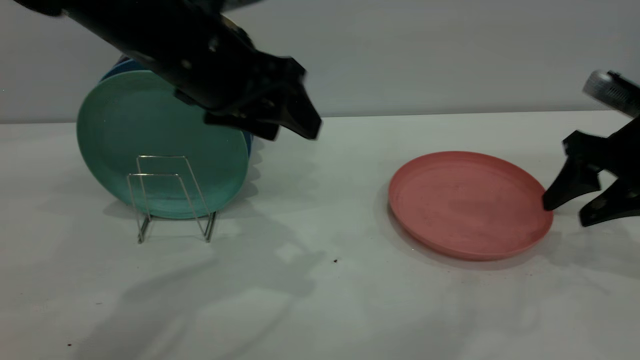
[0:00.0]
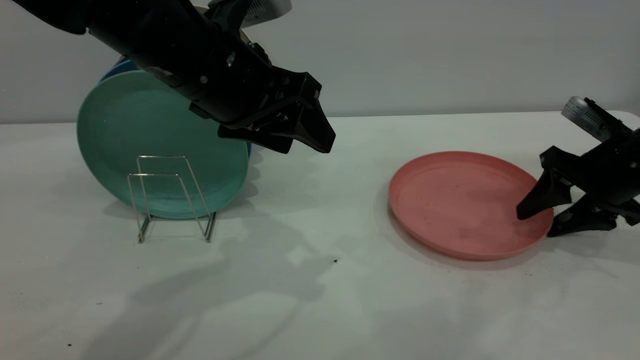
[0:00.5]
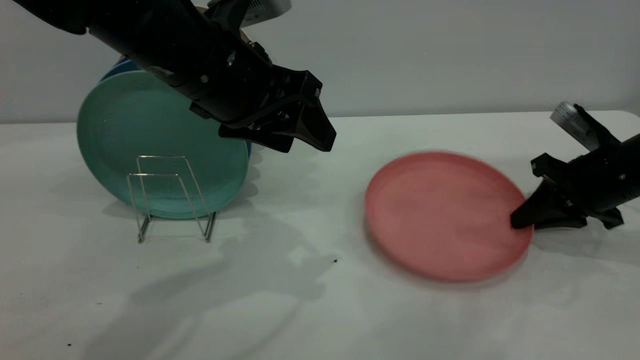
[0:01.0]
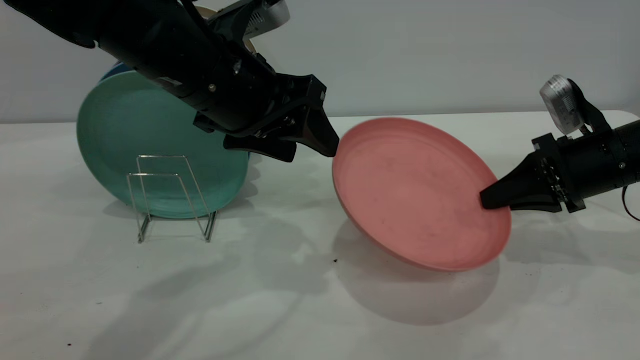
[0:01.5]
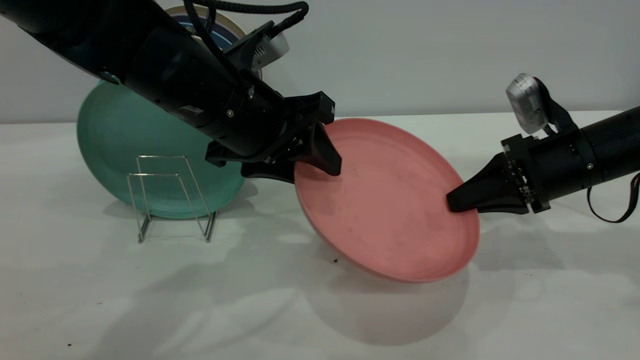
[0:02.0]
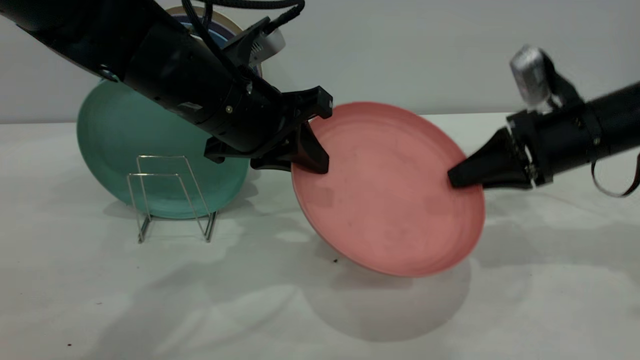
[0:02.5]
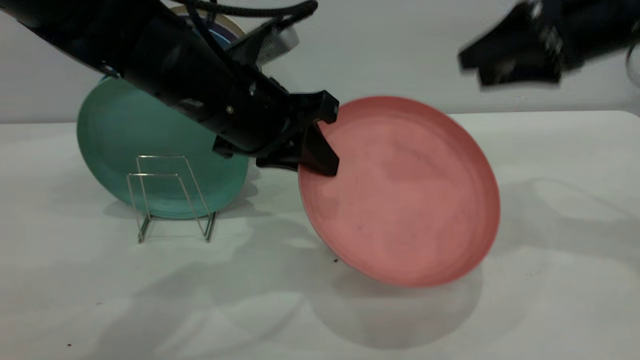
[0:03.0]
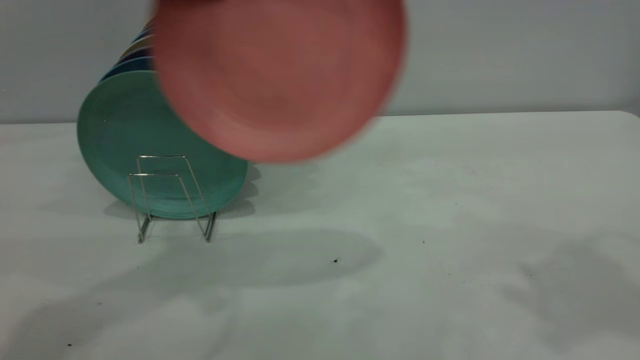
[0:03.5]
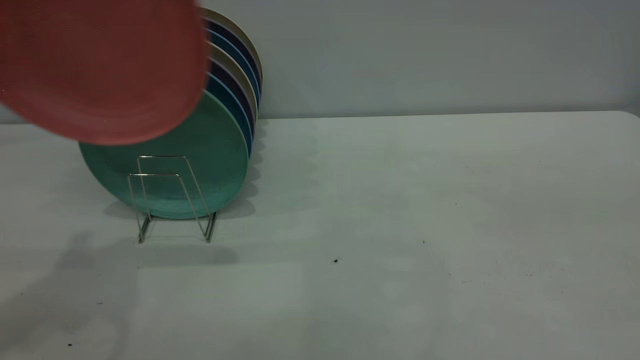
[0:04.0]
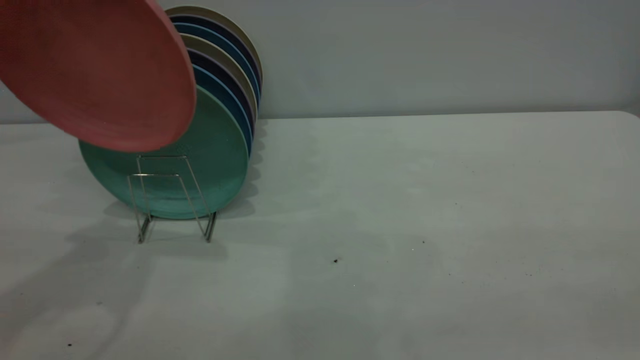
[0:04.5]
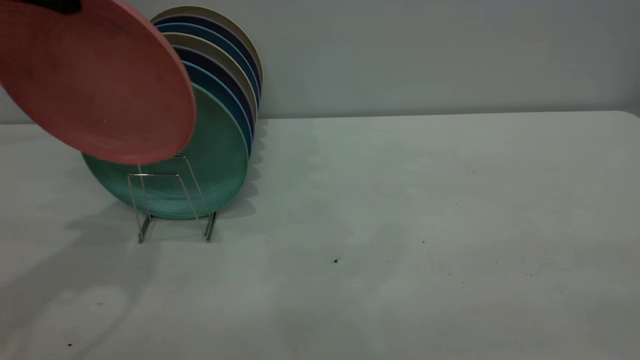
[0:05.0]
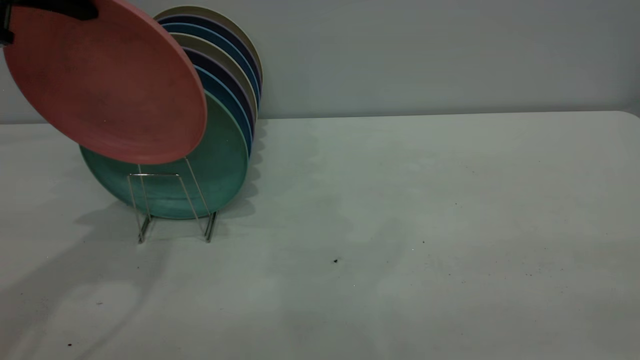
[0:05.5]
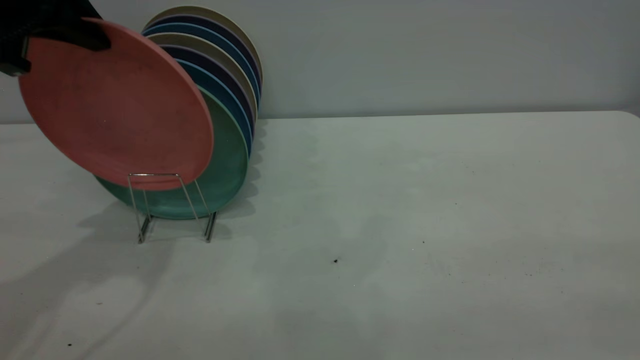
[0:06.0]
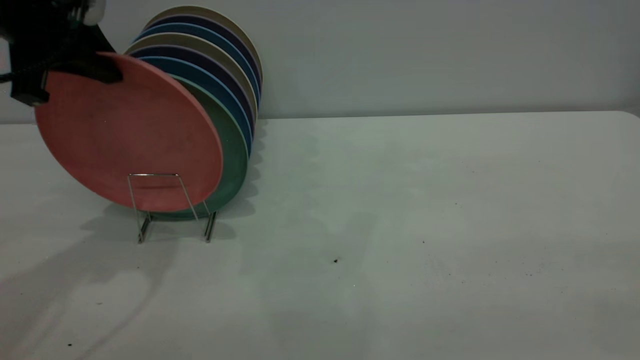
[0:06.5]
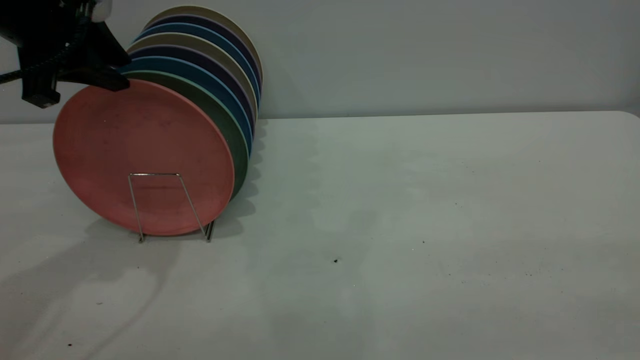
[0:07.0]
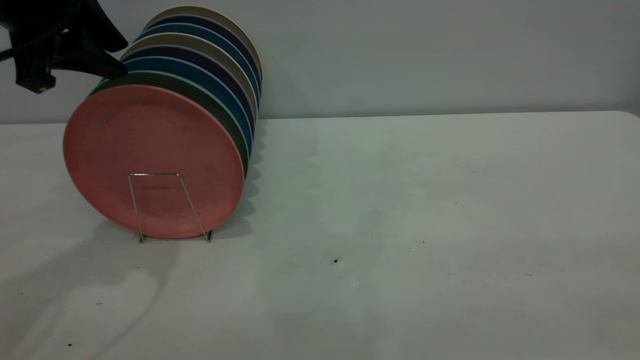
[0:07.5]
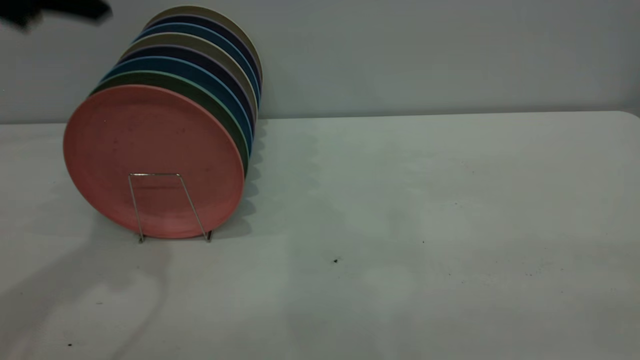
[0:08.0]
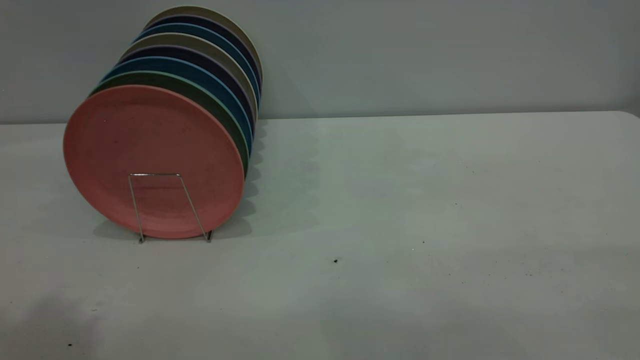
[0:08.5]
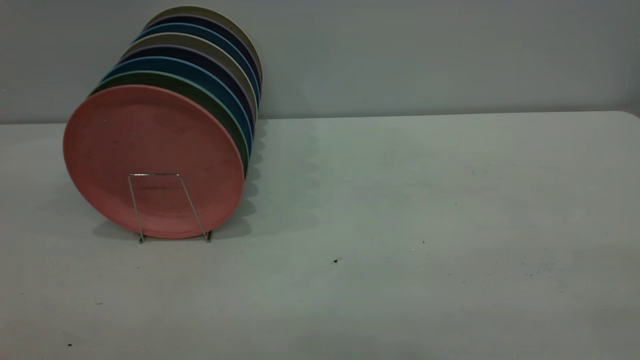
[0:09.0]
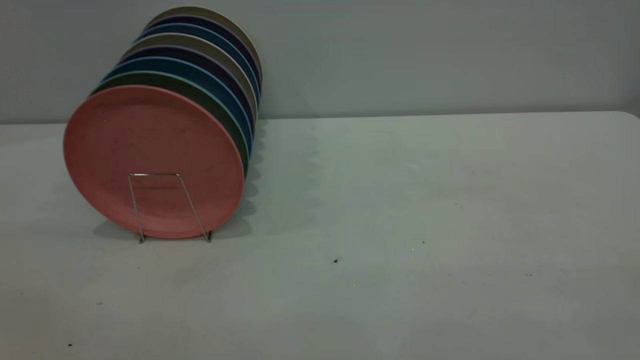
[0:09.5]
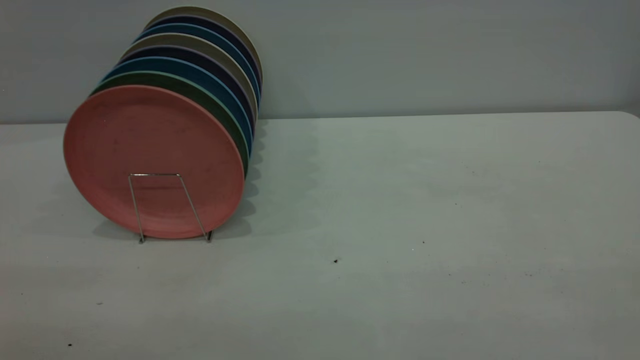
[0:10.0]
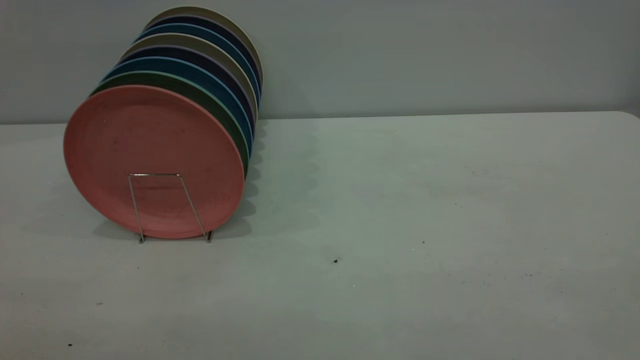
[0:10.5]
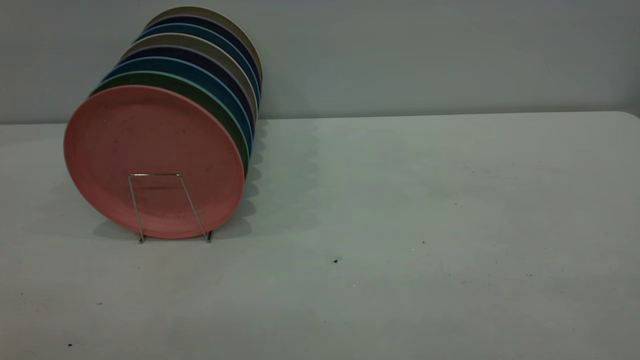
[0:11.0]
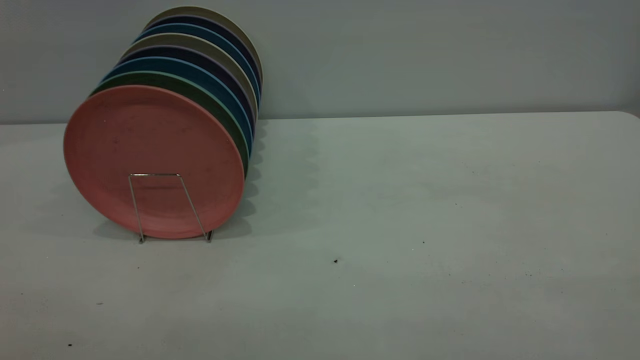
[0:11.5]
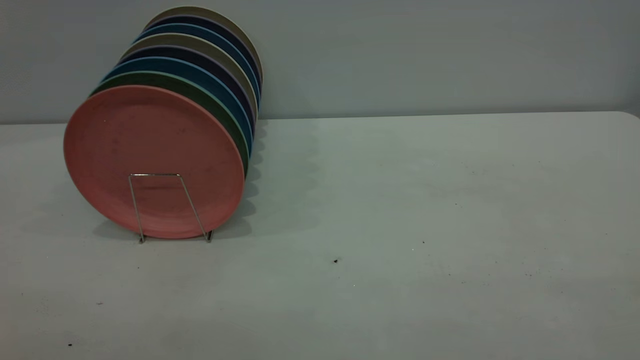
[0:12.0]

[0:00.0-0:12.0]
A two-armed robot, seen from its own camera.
Task of the whole recording: the right gripper grasp the pink plate, the right gripper pass the pink plate to the left gripper, and the left gripper place the pink plate on the plate rack.
Step, 0:01.5 to 0:05.0: Pass the plate from the right gripper to the left gripper.
Step, 0:05.5 to 0:07.5: Place the plate on the shelf.
0:00.0 to 0:02.0: The right gripper travels to the left by approximately 5 cm, and closes its fingers. The left gripper closes its fingers.
0:02.0 to 0:04.0: The right gripper moves upward and backward, about 40 cm, and opens. Meanwhile the left gripper travels upward and to the left by about 25 cm, and closes its fingers.
0:04.0 to 0:06.0: The left gripper shifts about 10 cm downward and forward.
0:06.0 to 0:08.0: The left gripper ends up about 5 cm from where it was, and opens.
0:08.0 to 0:10.0: The left gripper heads backward, covering approximately 35 cm.
